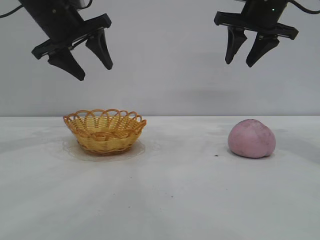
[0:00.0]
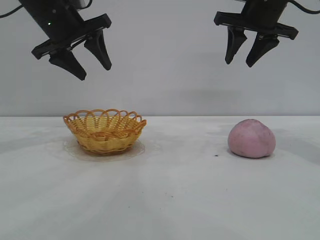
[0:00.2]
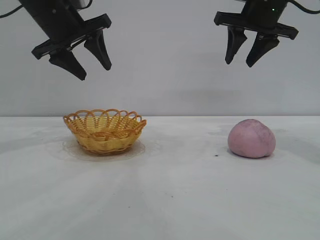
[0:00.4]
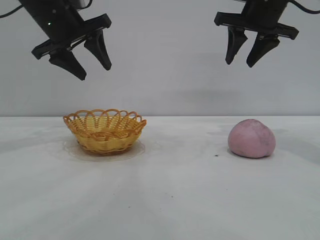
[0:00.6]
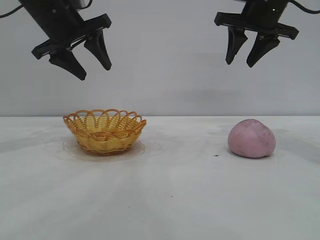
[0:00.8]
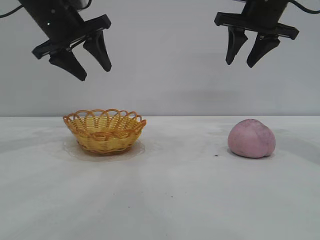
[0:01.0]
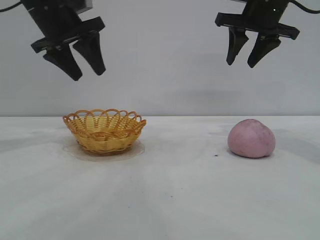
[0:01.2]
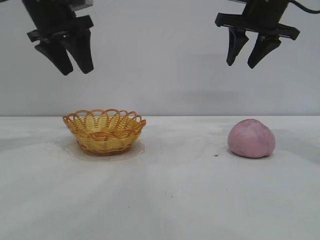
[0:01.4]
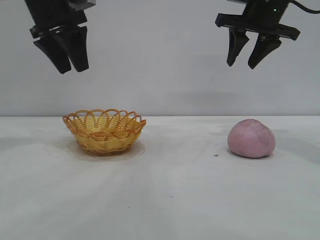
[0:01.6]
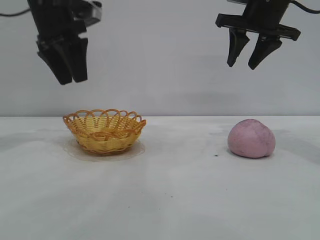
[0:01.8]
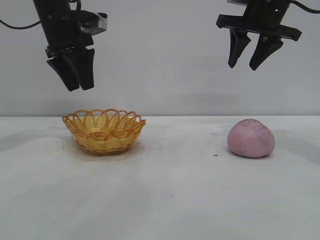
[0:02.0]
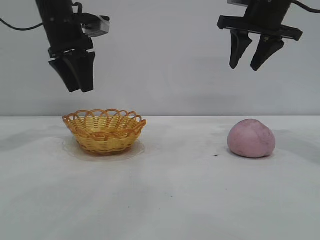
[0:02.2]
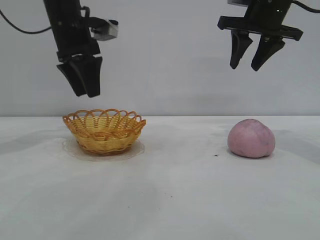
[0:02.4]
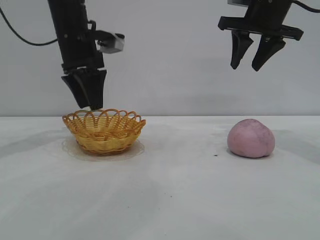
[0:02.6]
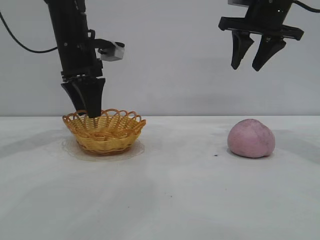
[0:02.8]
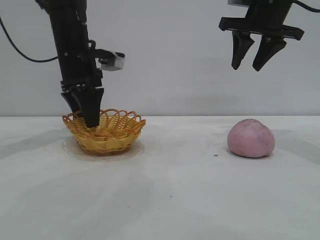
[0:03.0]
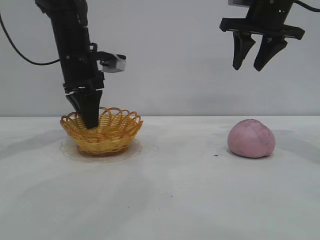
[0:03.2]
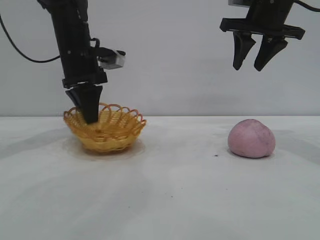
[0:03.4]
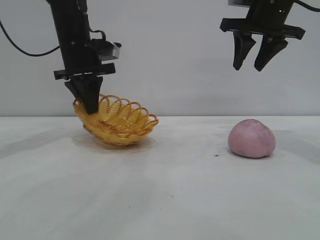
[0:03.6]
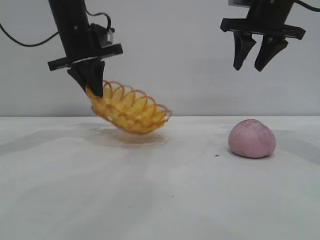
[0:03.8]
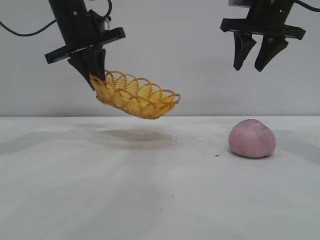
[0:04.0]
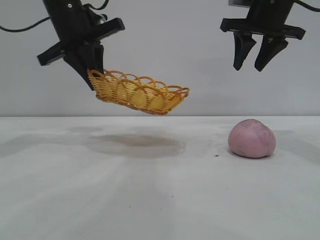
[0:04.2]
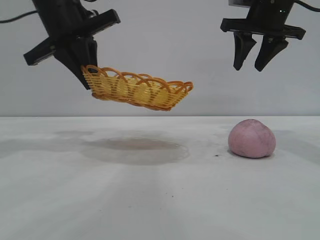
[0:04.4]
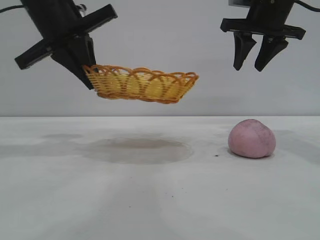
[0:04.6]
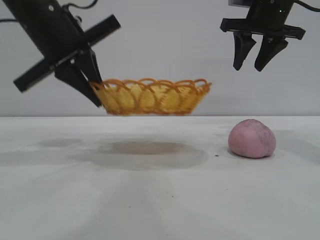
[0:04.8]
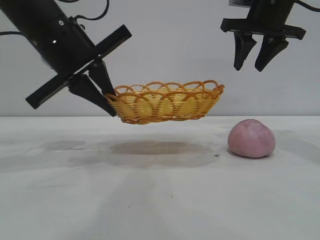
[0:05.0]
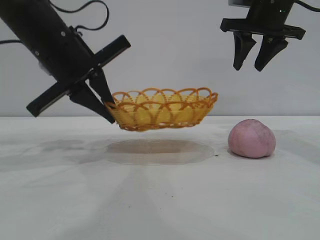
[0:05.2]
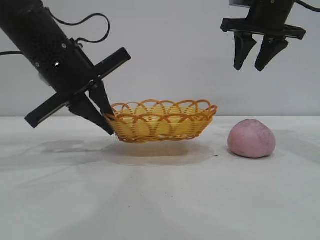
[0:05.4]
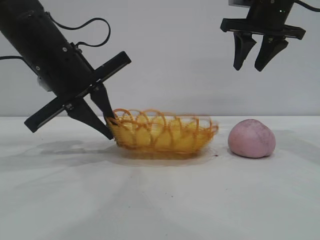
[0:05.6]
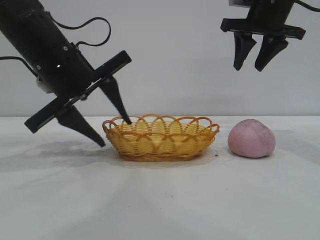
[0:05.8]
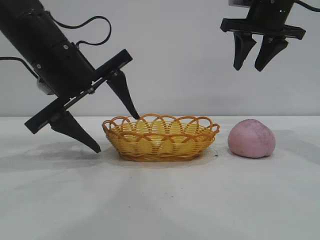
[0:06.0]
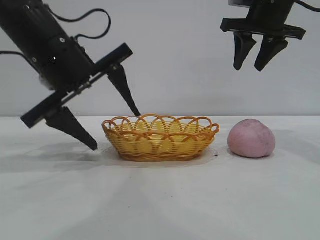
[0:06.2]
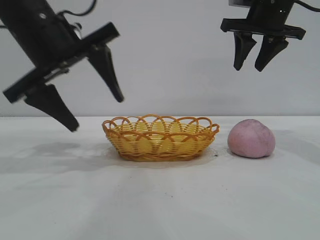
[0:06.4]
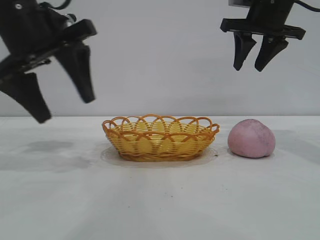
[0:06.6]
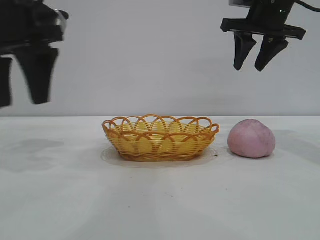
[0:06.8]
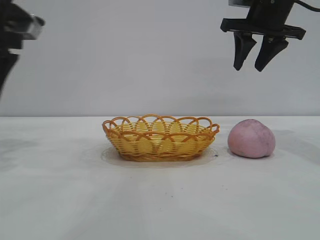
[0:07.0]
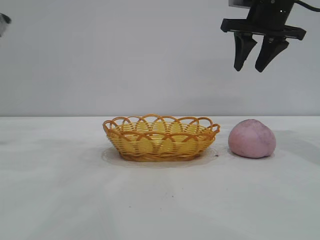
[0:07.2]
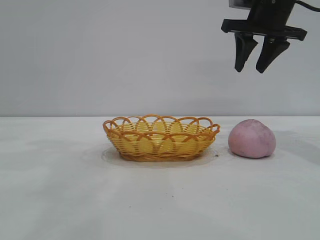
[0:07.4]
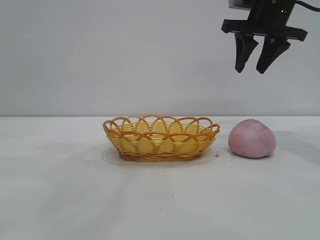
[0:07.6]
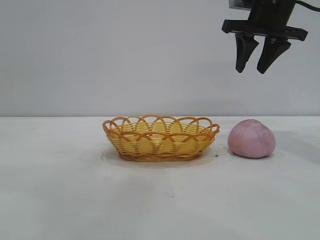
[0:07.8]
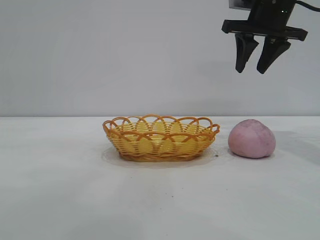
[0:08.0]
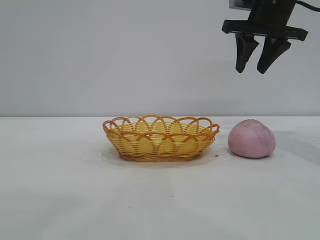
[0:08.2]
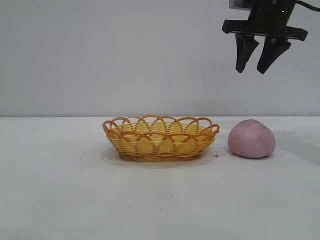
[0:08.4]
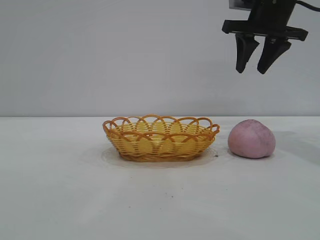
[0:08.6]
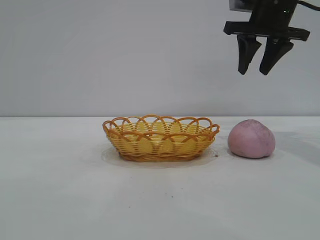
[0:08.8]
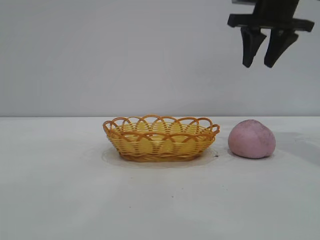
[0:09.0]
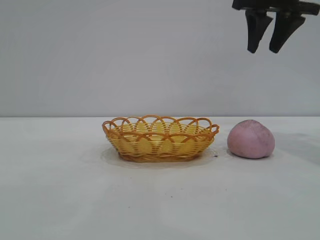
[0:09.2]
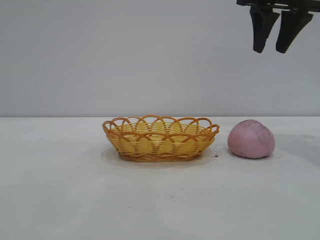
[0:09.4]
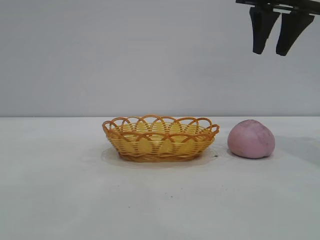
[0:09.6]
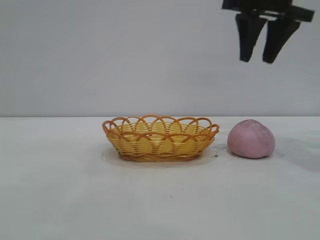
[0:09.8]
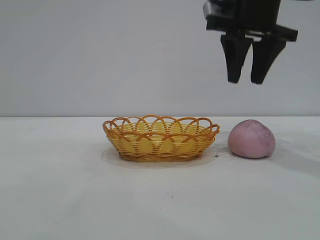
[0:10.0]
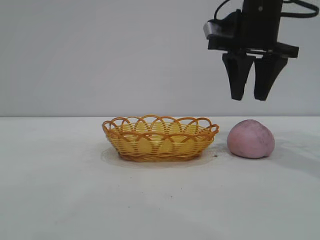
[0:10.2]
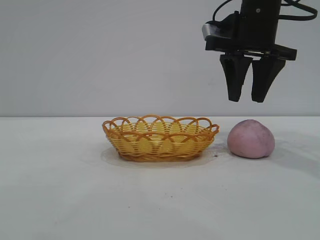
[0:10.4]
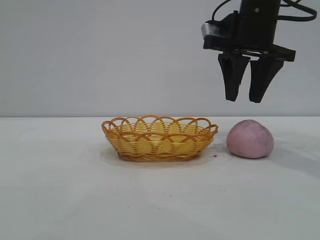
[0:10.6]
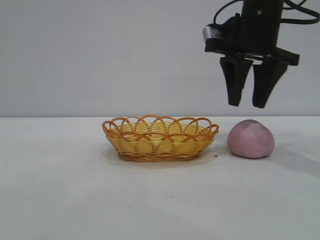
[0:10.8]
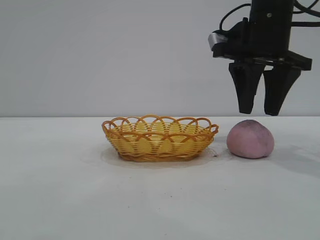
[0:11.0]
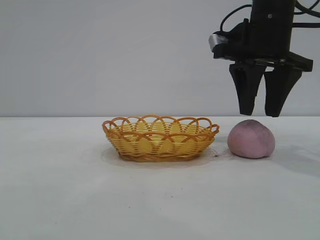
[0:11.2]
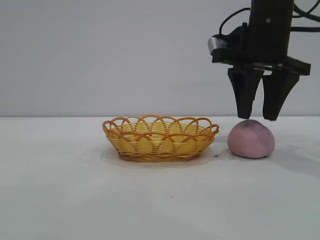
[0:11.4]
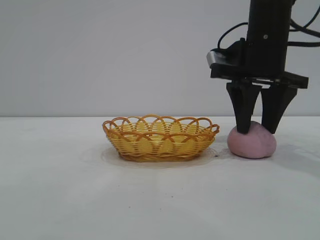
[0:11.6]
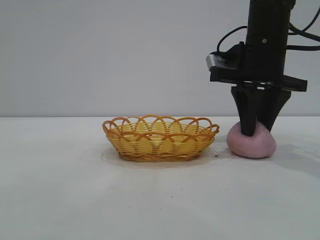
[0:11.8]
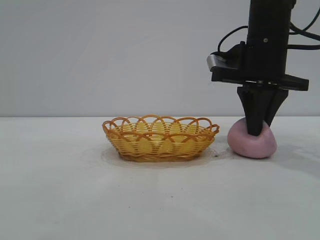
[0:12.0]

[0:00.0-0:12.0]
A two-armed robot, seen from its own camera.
Task of the whole recording: pick up the peach and put it into the basket.
Step, 0:00.0 to 0:06.6: Move the basket to the center of view.

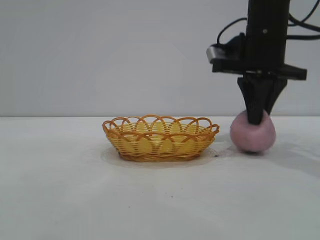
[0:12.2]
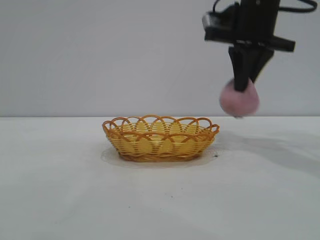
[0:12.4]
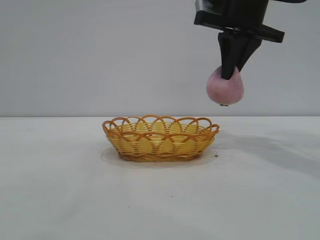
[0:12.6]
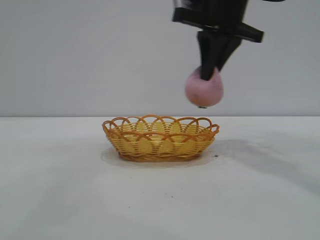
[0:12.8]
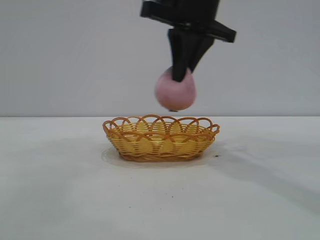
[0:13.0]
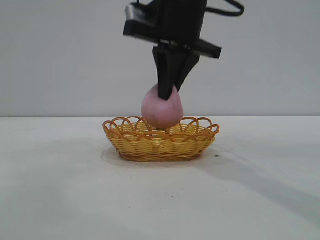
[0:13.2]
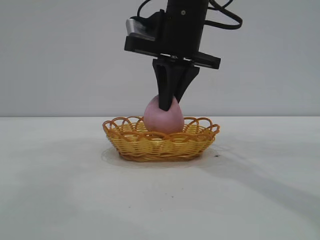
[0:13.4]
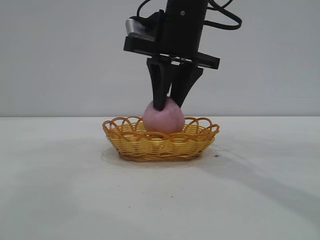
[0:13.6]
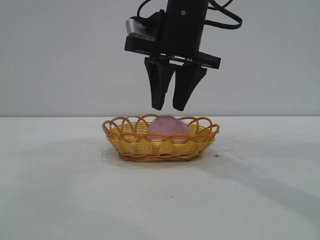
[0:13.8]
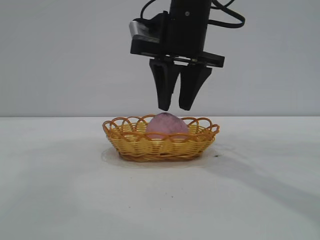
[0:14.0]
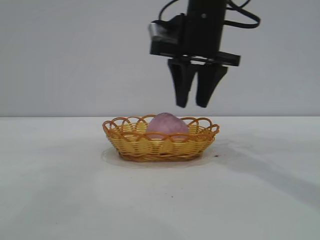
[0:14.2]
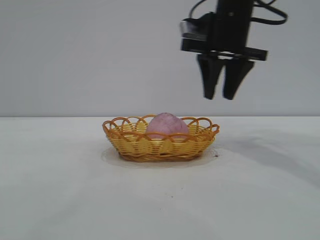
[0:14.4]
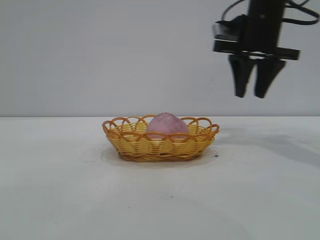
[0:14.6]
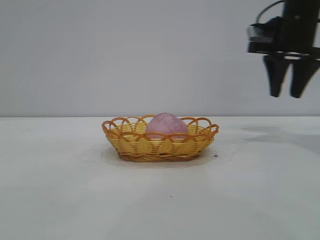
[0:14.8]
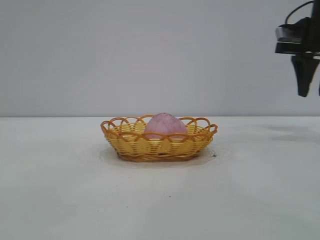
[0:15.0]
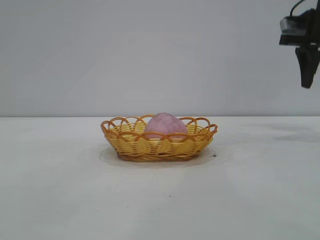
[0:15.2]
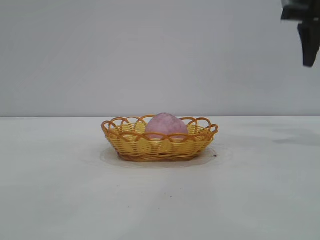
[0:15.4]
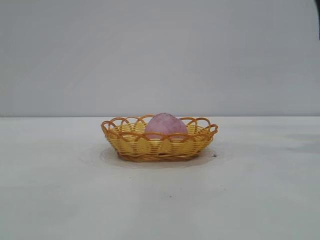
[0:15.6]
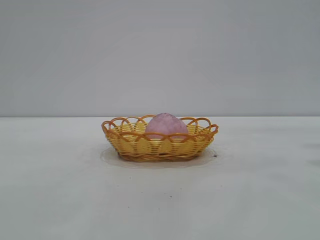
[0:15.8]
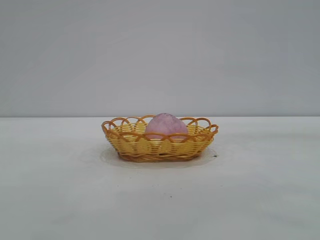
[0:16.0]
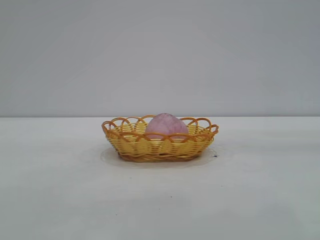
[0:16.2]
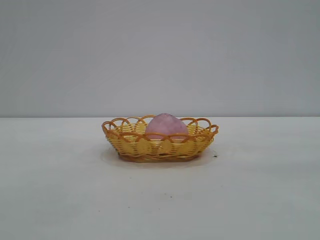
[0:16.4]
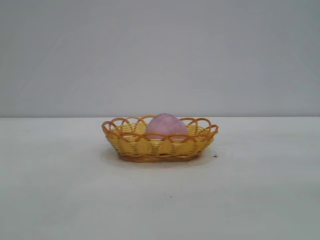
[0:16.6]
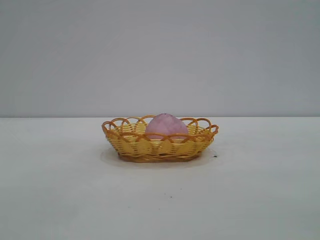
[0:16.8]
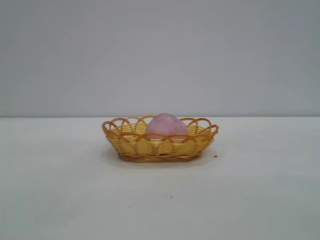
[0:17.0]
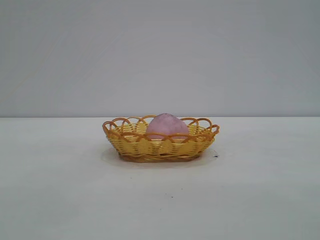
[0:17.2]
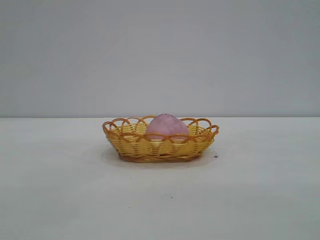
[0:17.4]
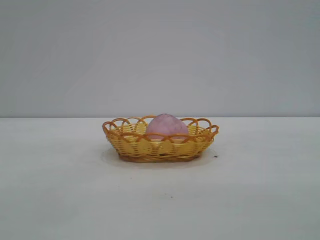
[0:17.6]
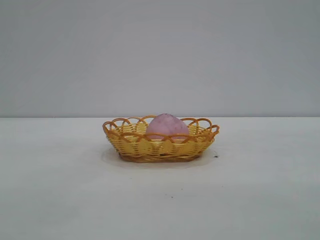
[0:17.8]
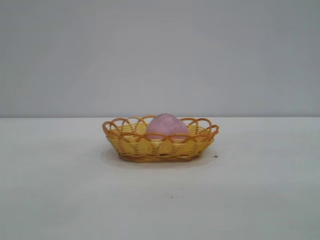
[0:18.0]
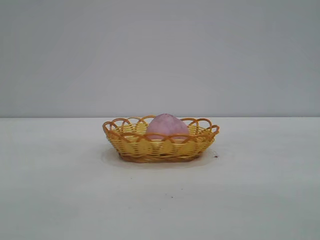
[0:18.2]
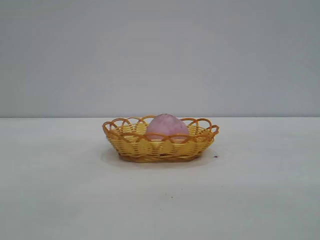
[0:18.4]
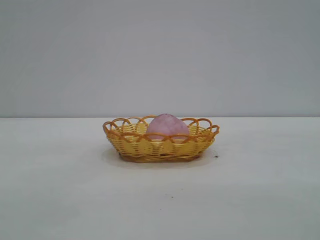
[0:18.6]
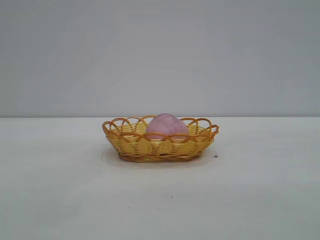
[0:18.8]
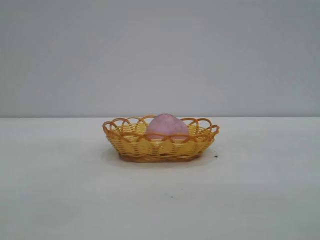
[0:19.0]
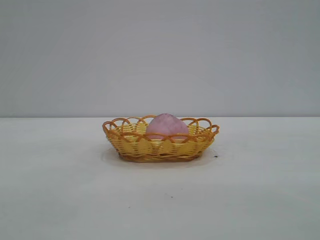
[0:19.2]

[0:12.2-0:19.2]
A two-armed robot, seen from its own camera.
Task of the whole recording: pick up the peach and put it into the basket.
Step, 0:12.6 to 0:14.4: place the peach into the basket.

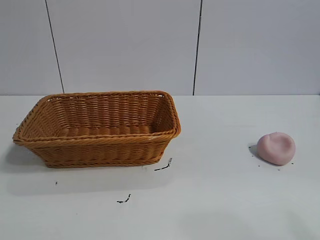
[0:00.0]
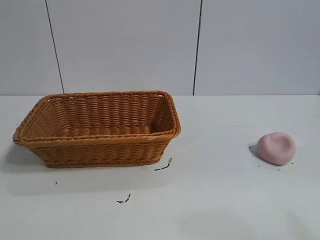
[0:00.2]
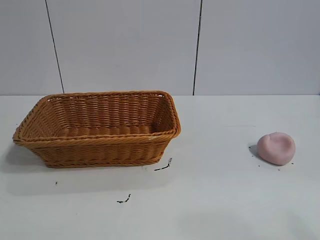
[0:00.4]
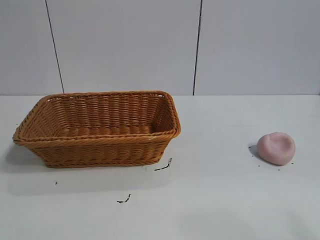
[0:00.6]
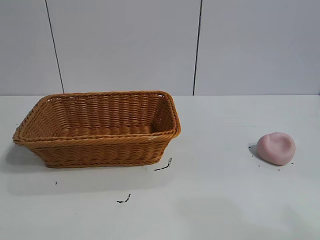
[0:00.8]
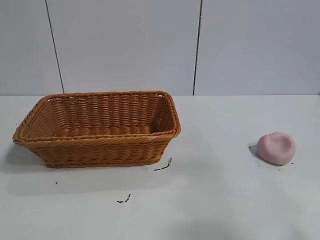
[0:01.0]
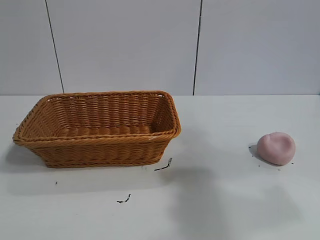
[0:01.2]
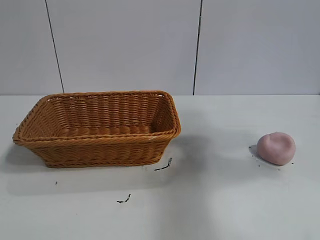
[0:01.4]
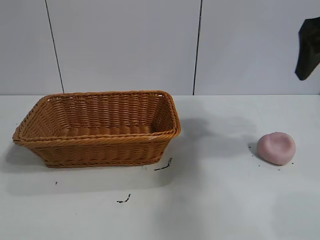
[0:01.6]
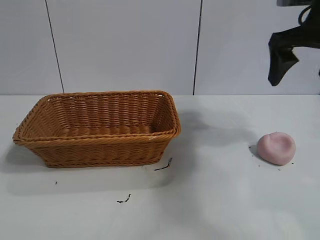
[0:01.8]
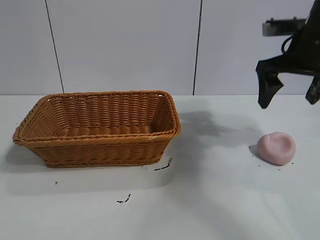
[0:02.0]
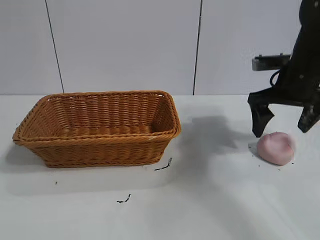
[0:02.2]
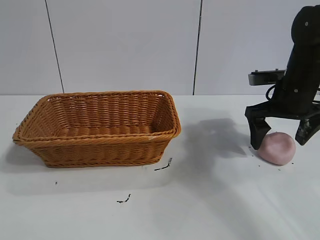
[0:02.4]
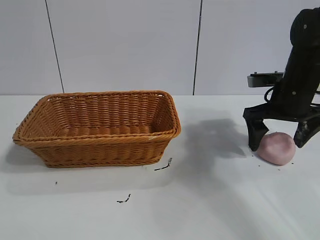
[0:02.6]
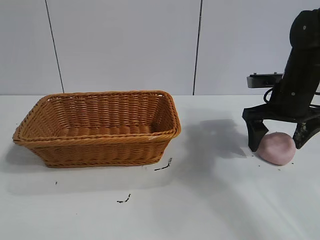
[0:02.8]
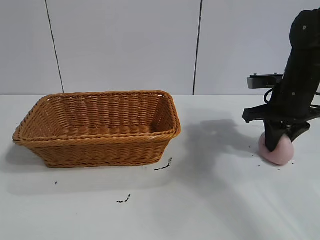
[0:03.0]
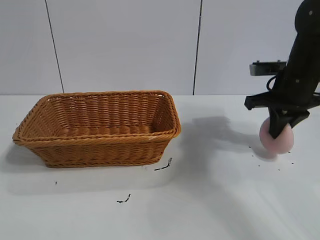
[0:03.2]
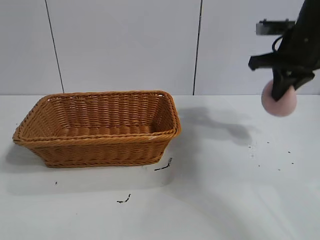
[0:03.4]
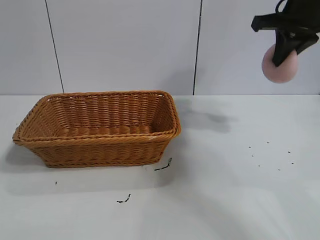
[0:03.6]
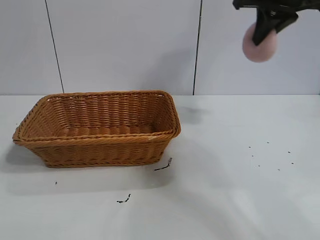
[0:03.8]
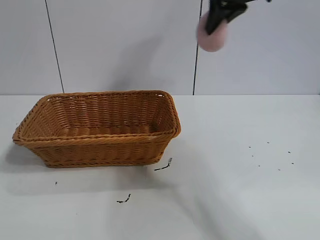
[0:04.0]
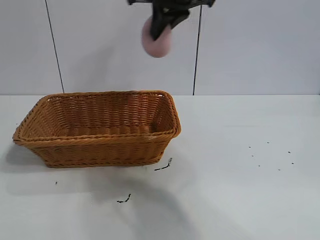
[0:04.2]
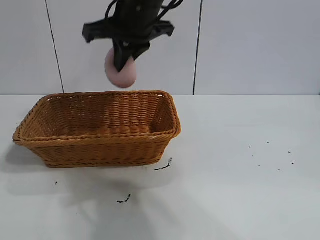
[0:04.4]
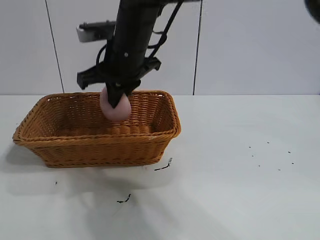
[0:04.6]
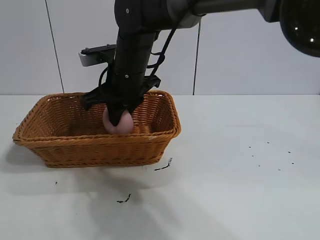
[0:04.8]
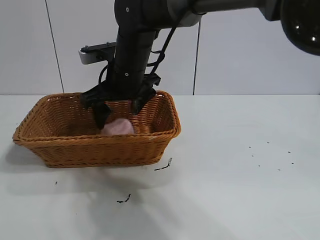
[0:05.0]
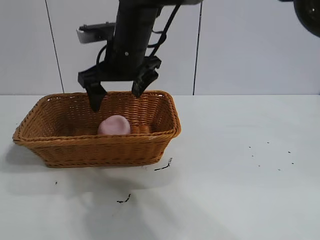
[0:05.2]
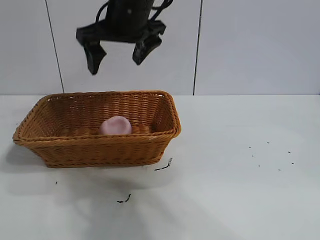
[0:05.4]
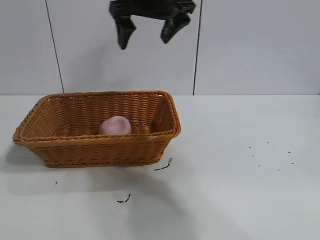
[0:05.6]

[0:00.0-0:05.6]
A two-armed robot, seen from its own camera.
Task of the whole recording: pick up the peach and put it into the basket.
Step, 0:00.8 to 0:03.0: Grasp the peach with right gripper.
Step, 0:03.2 to 0:05.0: Place the peach in the basket with right gripper.
